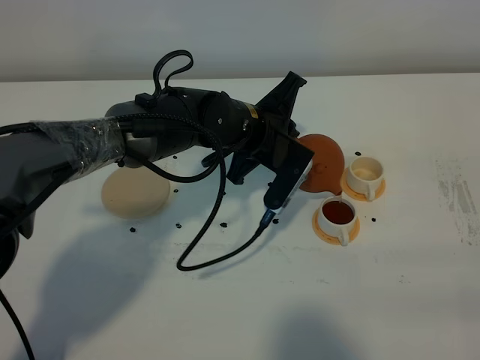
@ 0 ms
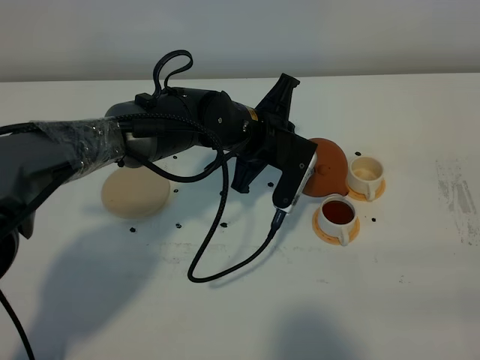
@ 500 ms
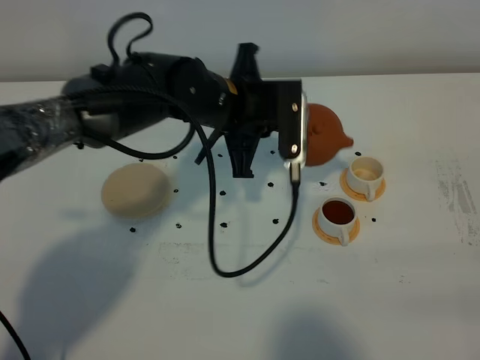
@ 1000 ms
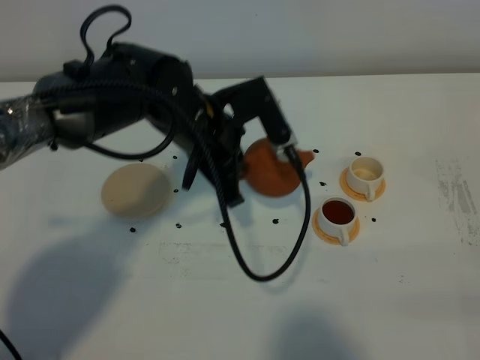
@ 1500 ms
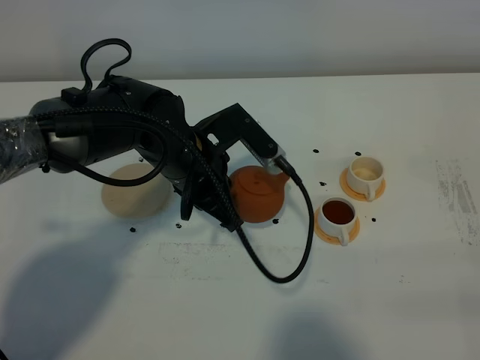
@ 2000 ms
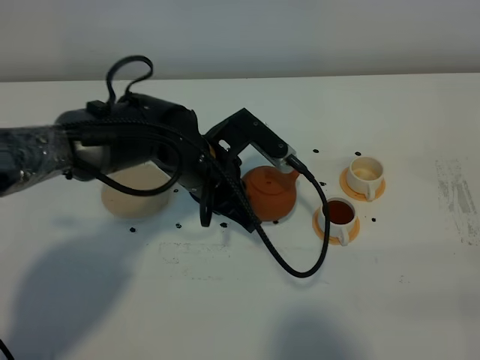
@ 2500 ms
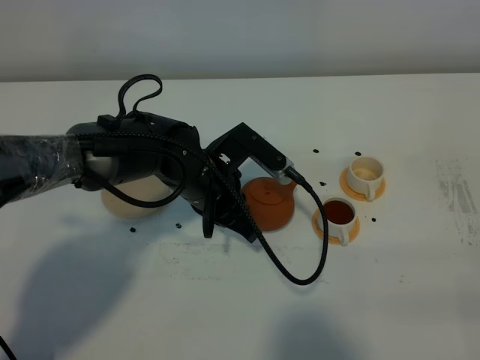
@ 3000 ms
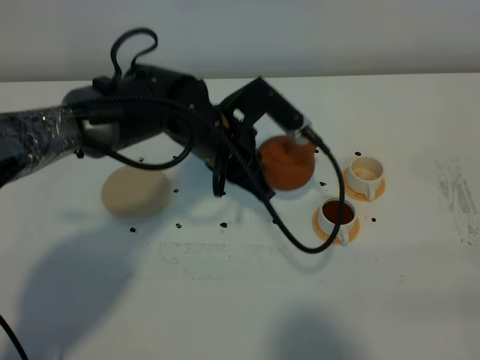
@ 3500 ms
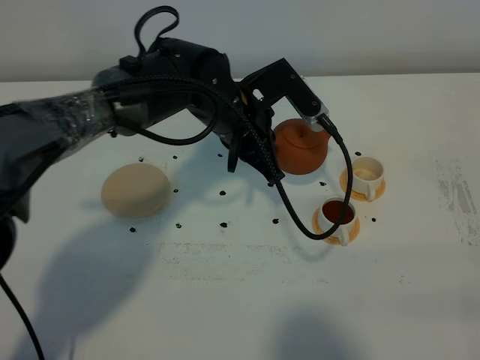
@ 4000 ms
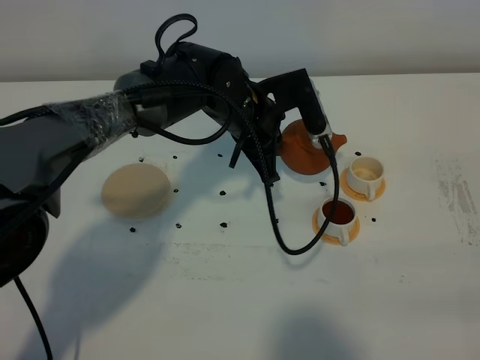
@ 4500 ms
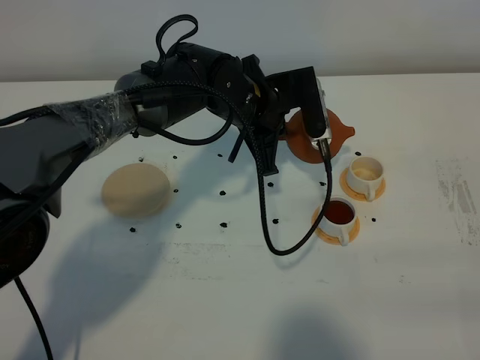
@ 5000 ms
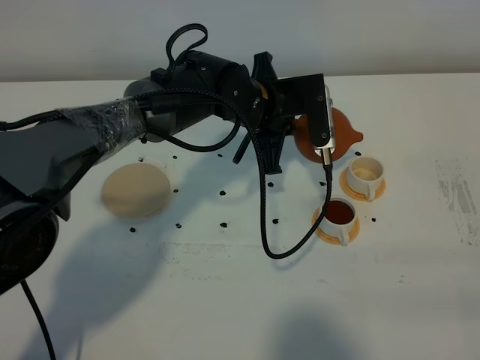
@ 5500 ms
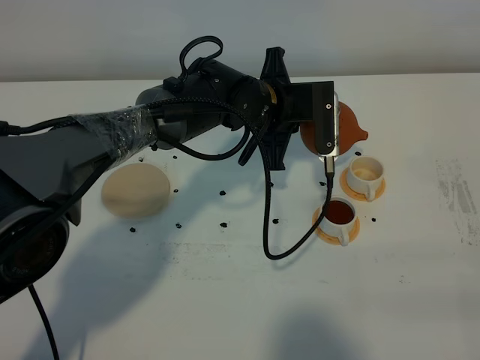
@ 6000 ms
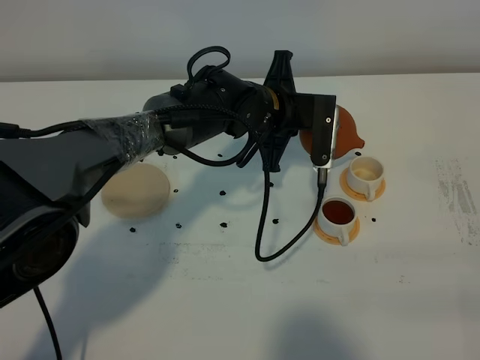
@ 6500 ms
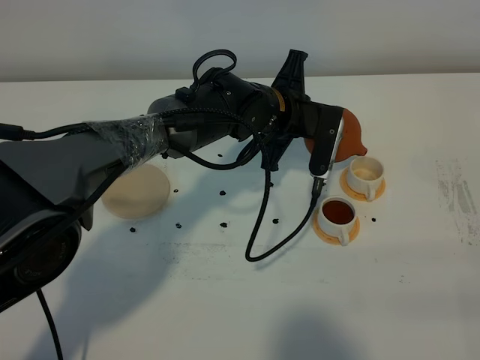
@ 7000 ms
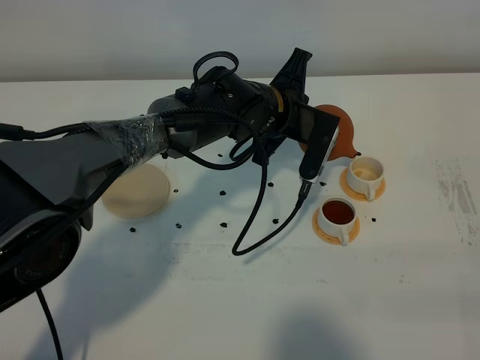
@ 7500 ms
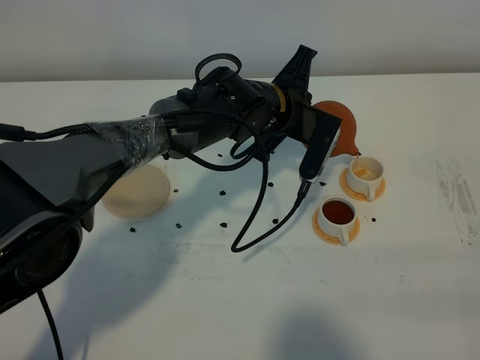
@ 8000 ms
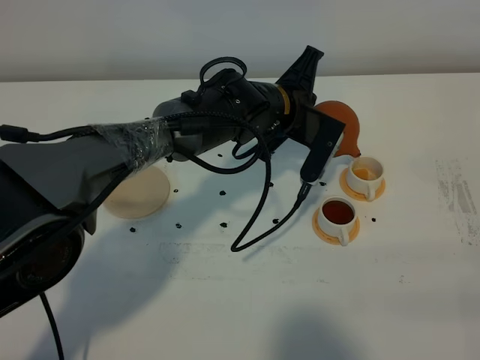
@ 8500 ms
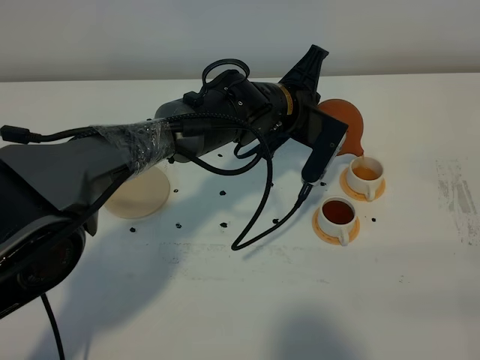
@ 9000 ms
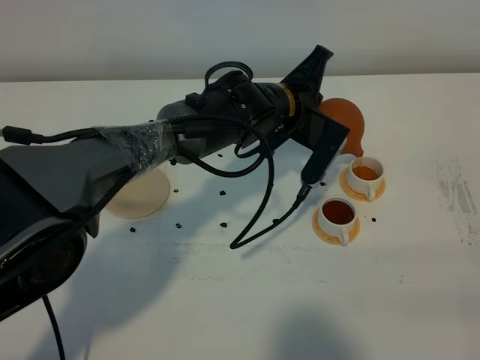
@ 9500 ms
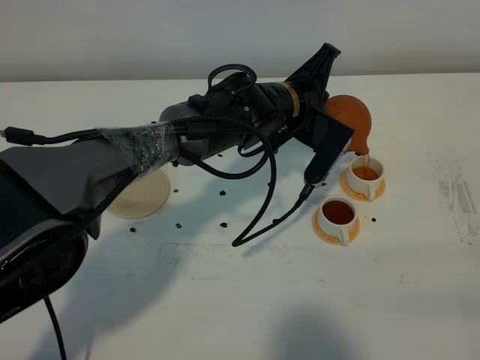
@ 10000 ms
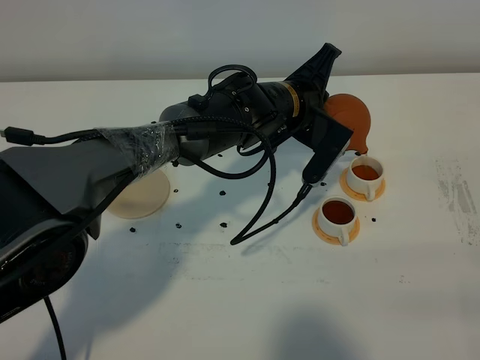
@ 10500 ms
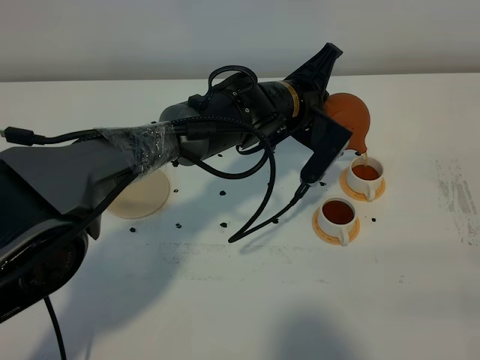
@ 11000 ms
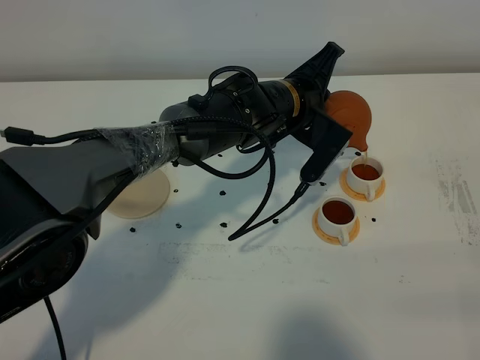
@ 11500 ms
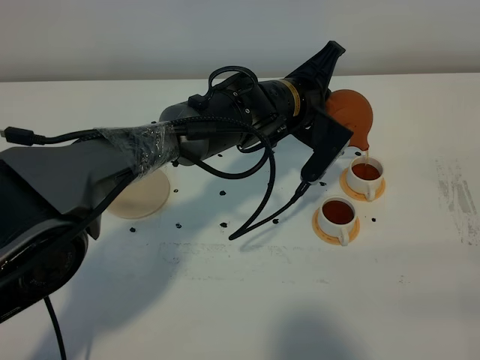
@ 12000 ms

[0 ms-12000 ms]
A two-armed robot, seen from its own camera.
Task of the whole recording: grasp the brown teapot and pour the tea into the two white teacups one by one, put the brown teapot back in its original place.
0 ms to 2000 ms: The left gripper travels to the left and backward by roughly 10 cm.
2000 ms to 4000 ms: The left gripper goes approximately 10 cm forward and to the right.
8000 ms to 10000 ms: The grippers make only small movements.
10000 ms to 12000 ms: Both grippers stay put.

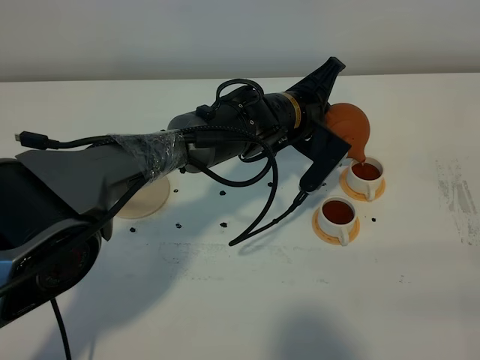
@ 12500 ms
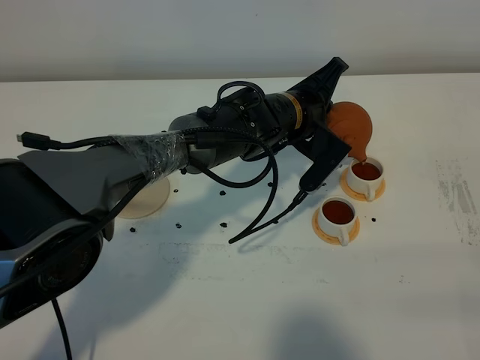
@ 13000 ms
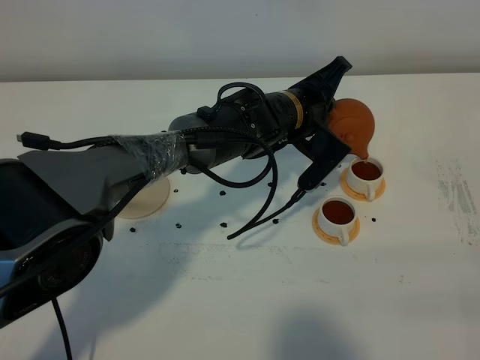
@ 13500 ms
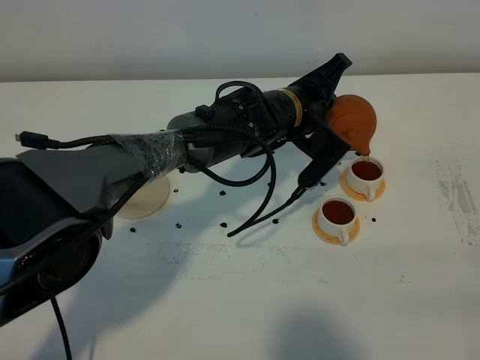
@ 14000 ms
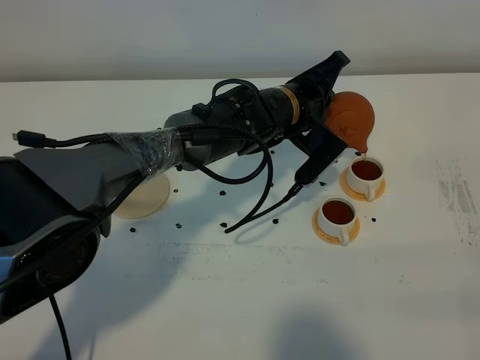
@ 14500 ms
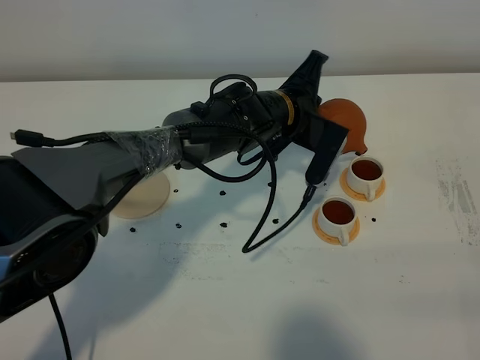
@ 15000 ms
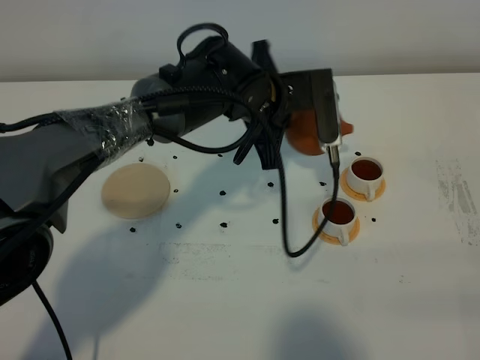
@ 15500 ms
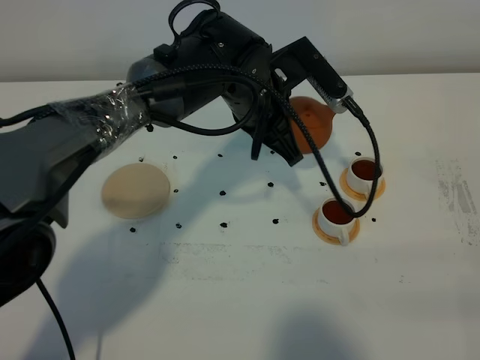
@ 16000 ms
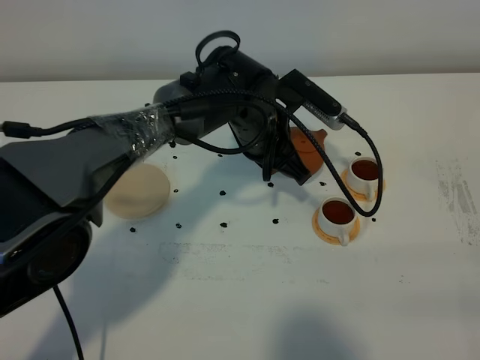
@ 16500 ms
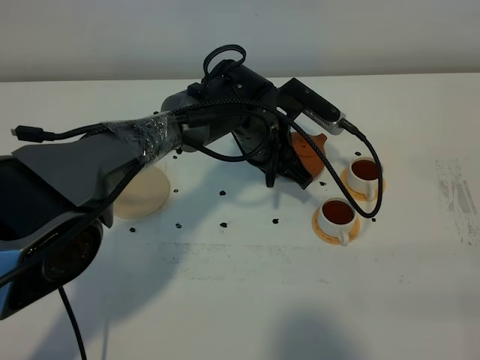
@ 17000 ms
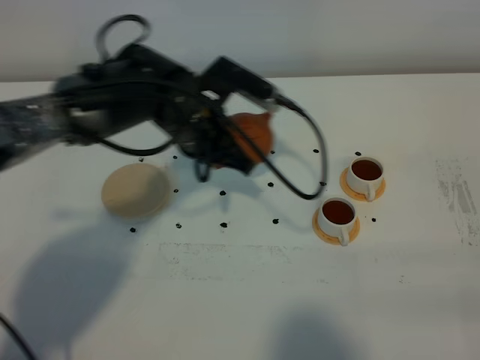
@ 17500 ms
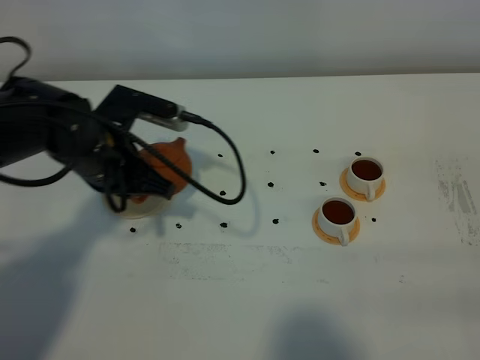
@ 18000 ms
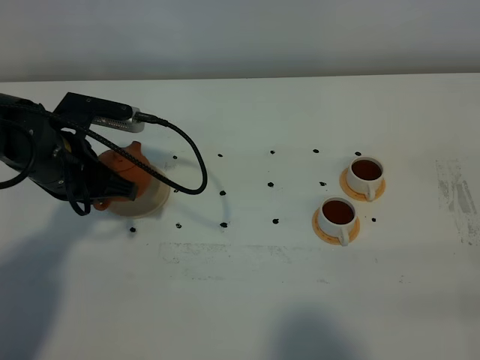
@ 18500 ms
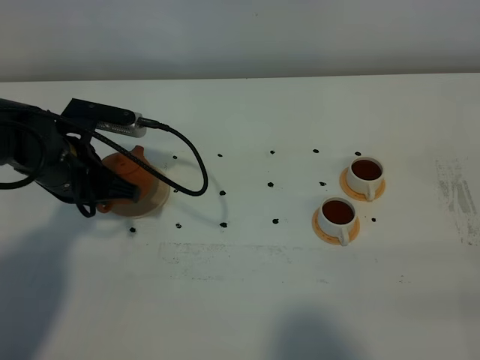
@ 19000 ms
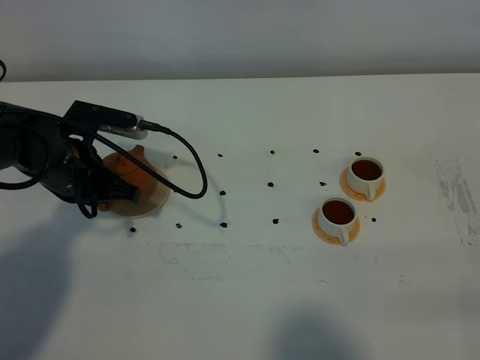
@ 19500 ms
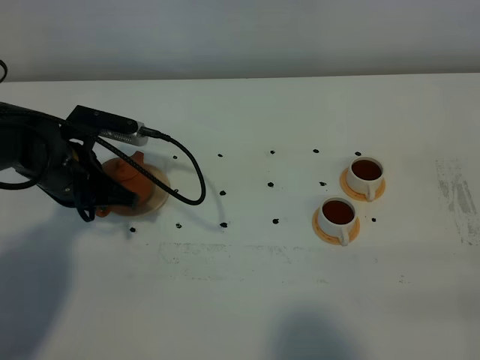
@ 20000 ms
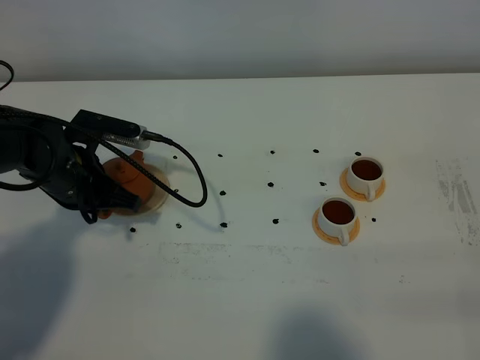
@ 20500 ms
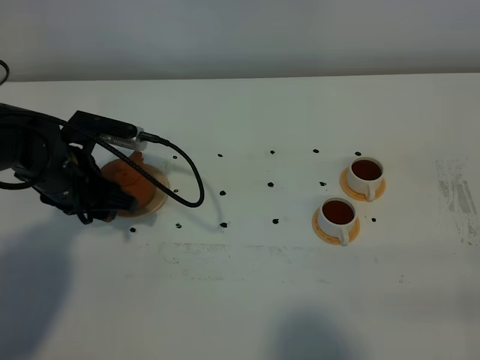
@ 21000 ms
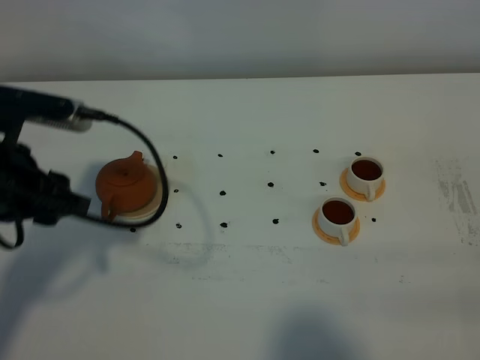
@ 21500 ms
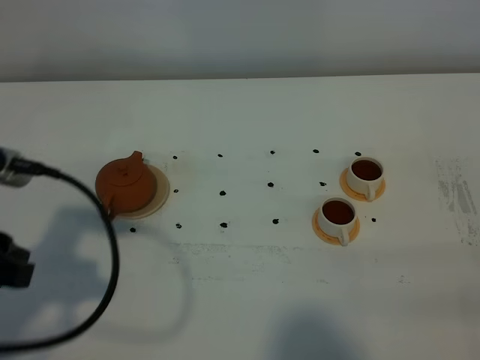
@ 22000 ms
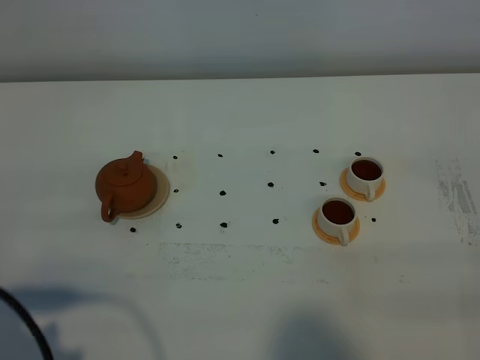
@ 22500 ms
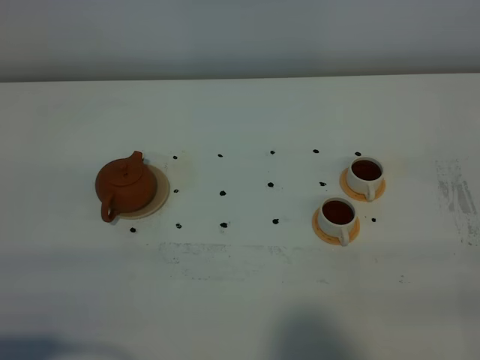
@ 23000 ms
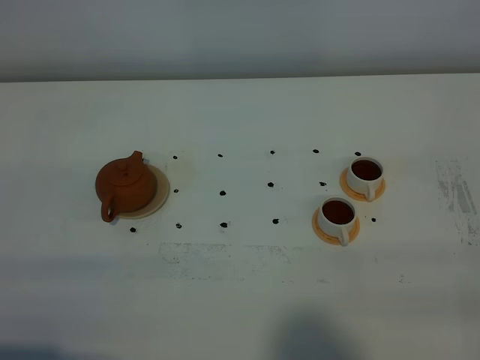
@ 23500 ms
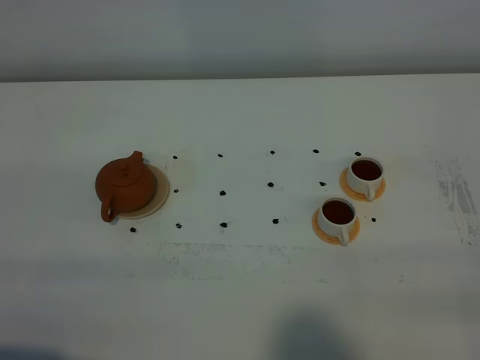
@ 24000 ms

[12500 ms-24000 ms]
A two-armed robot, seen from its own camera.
Task of the whole recording: grasp the brown teapot and pour the tea into the two white teacups one by one, put the brown teapot back in its original place.
Step, 12500 ms to 15000 ms: Pour tea into the teacup with the left gripper.
12500 ms to 14500 ms: The grippers move only a little.
16500 ms to 18500 ms: The left gripper is displaced to the left by roughly 25 cm.
18500 ms to 20000 ms: The grippers make only small movements.
20000 ms to 22000 ms: The left gripper is displaced backward and upward by about 20 cm, and opens.
22000 ms to 24000 ms: The left gripper heads backward, covering approximately 15 cm.

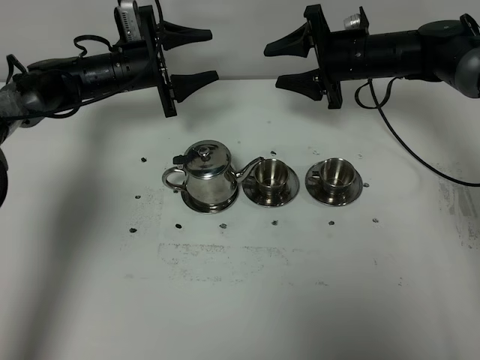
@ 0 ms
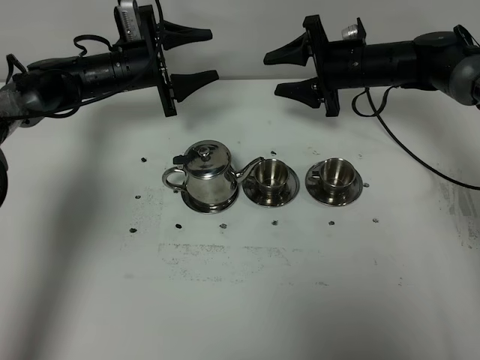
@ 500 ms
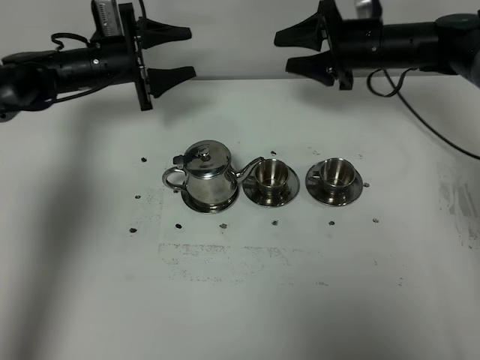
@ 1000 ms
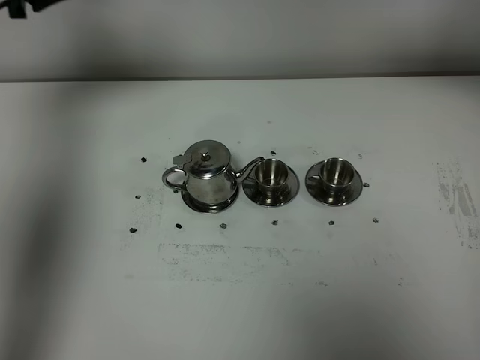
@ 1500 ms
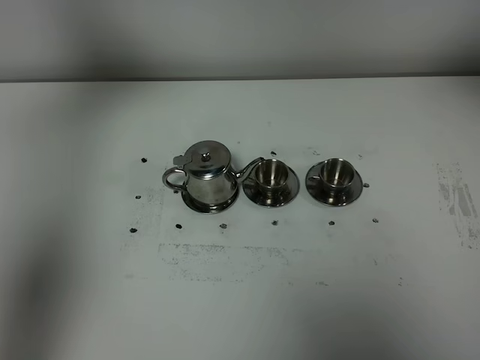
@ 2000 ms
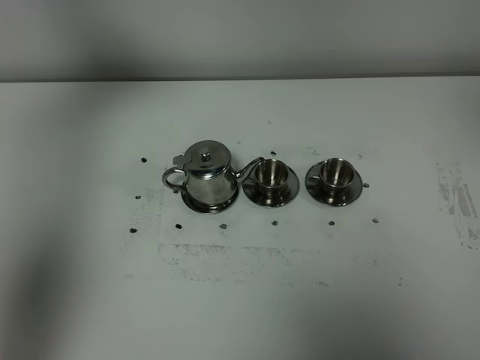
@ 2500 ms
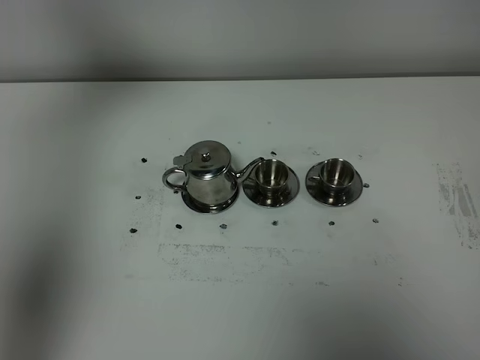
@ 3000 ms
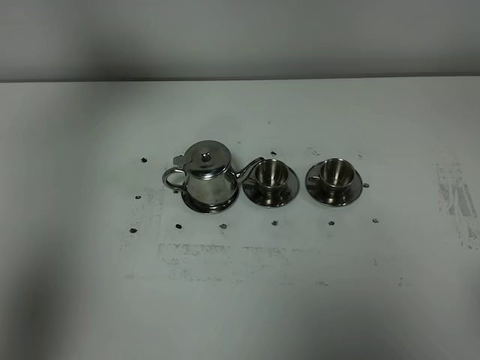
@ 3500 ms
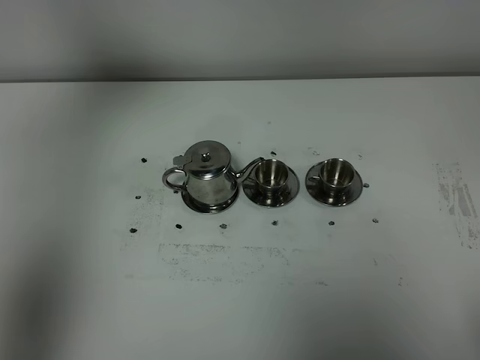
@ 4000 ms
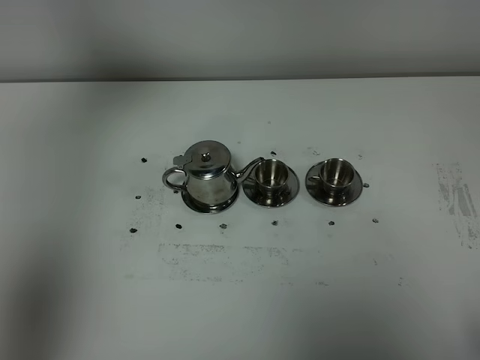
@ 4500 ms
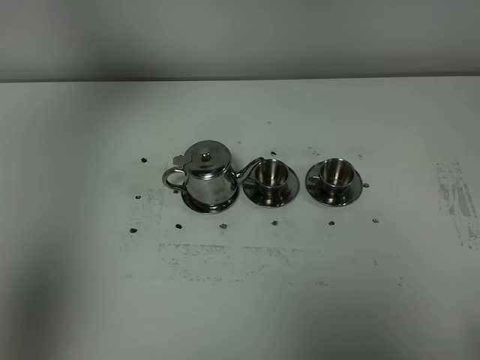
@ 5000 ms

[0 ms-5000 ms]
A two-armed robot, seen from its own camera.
Task of the whole recording: grasp the stainless steel teapot and pour the tea into the two stainless steel teacups one by one, put the stainless steel teapot back in its original place.
0 ms to 2500 ms: Both grippers travel together upward and backward, approximately 50 cm.
